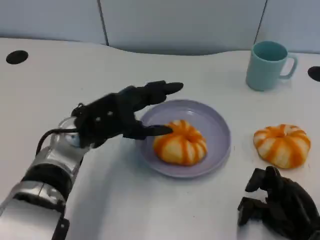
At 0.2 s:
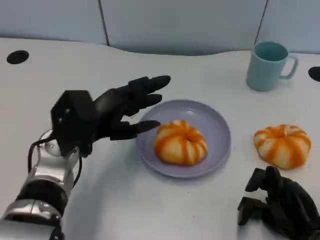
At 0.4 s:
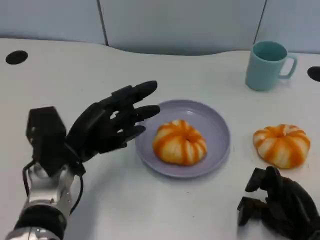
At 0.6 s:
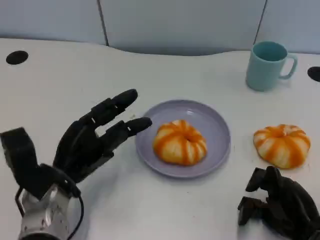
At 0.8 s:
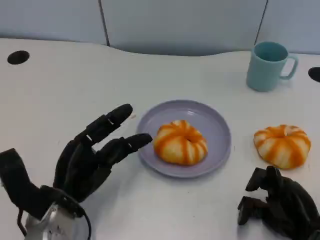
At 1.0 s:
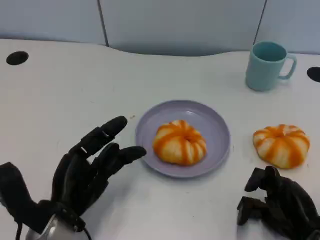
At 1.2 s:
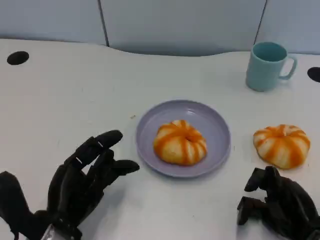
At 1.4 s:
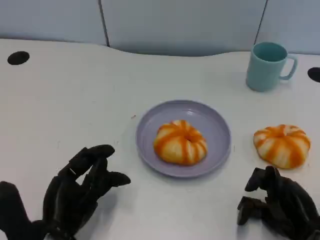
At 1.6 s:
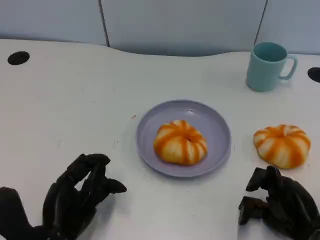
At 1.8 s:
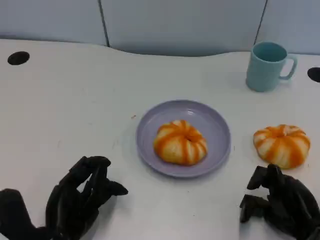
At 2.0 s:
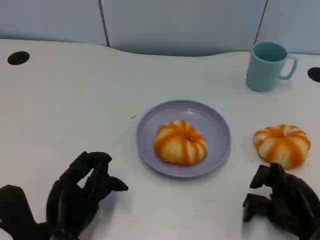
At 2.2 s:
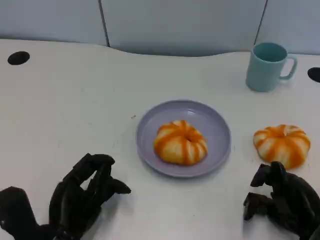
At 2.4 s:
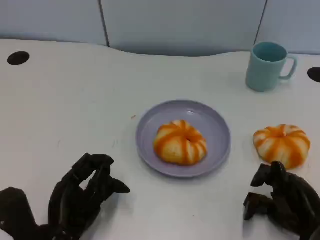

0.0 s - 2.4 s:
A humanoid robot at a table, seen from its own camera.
Task of the whole recording: Grasp the bread from the table and place it into the plate.
0.0 s - 1.2 s: The left hand goes approximately 15 cm backward and downward.
1.2 s - 2.4 s: The hands stay close to where they were, moving slightly.

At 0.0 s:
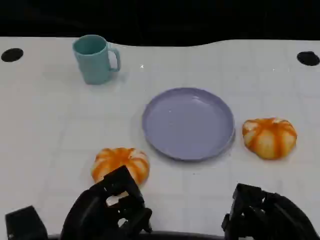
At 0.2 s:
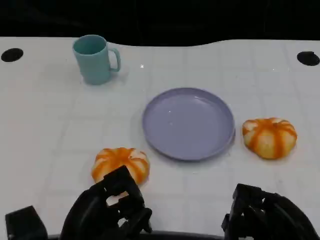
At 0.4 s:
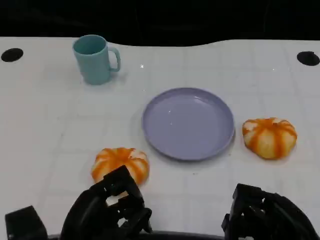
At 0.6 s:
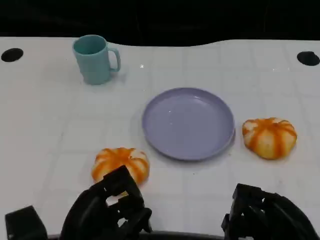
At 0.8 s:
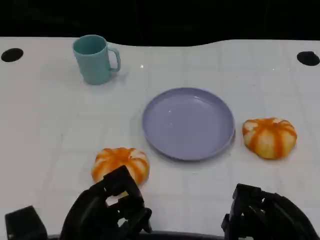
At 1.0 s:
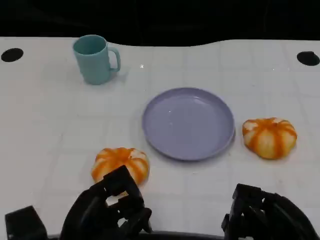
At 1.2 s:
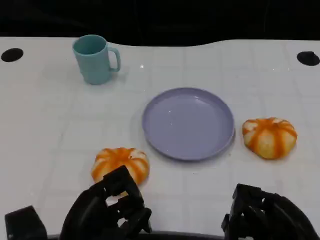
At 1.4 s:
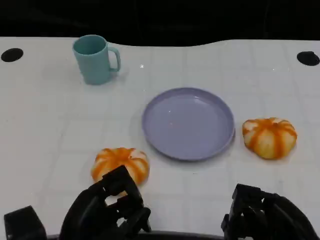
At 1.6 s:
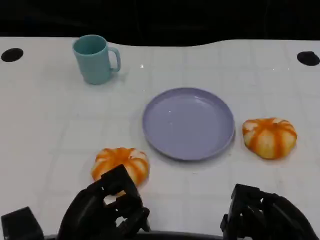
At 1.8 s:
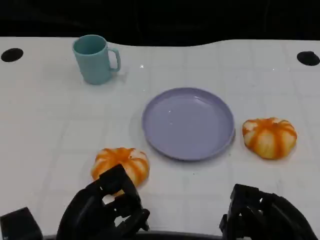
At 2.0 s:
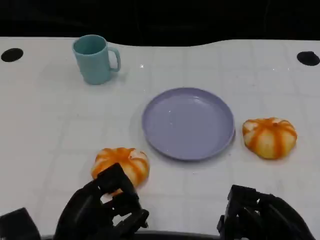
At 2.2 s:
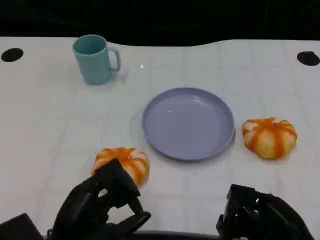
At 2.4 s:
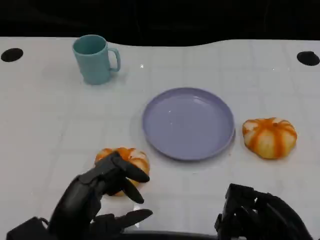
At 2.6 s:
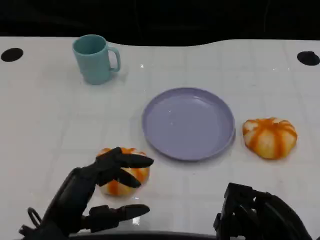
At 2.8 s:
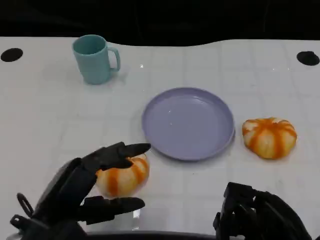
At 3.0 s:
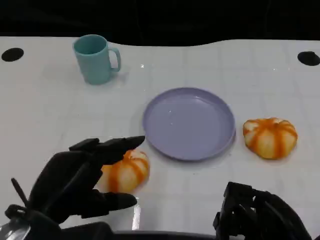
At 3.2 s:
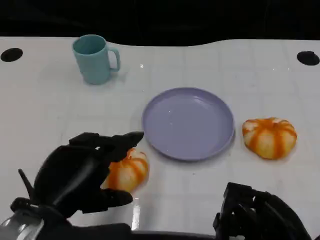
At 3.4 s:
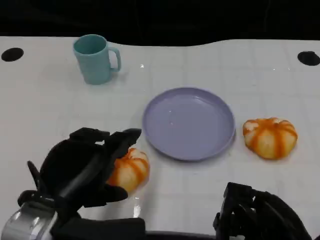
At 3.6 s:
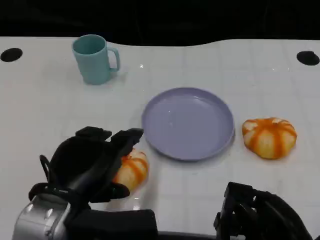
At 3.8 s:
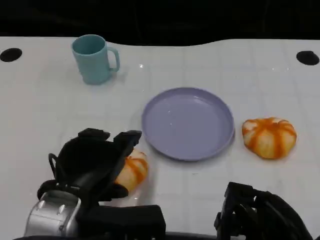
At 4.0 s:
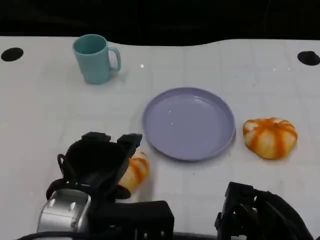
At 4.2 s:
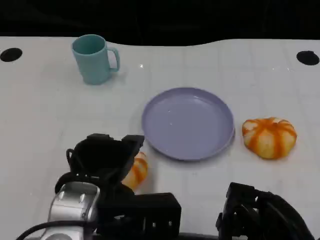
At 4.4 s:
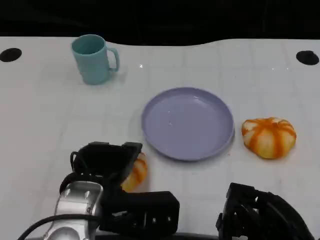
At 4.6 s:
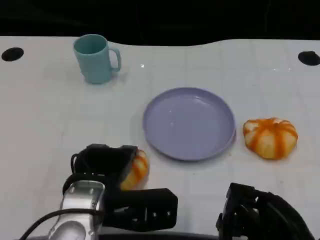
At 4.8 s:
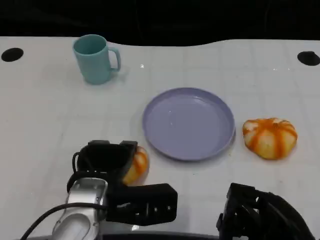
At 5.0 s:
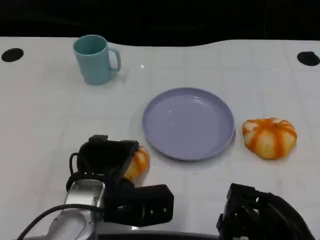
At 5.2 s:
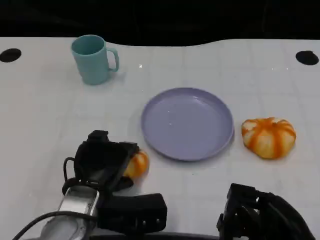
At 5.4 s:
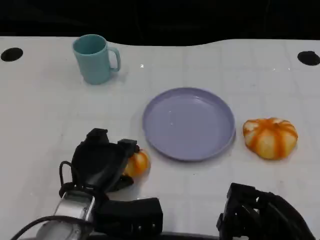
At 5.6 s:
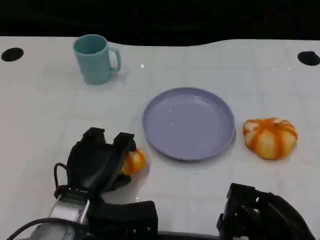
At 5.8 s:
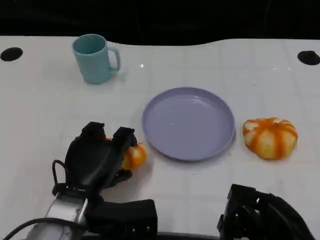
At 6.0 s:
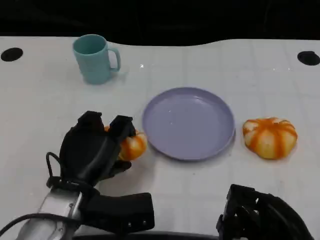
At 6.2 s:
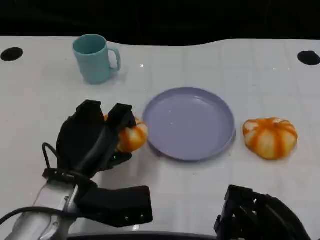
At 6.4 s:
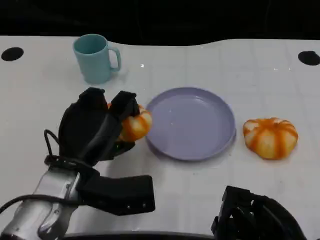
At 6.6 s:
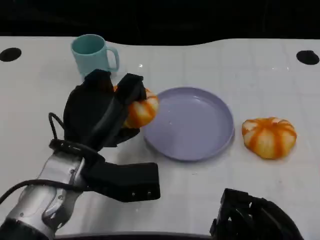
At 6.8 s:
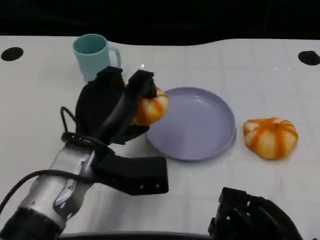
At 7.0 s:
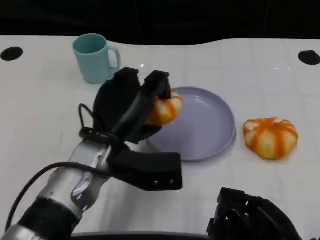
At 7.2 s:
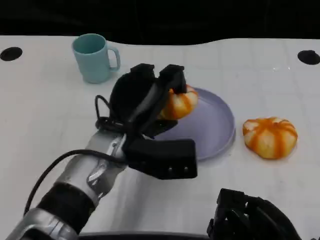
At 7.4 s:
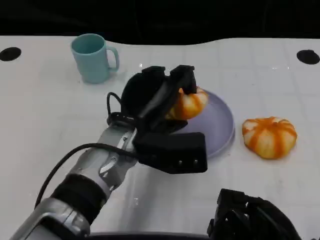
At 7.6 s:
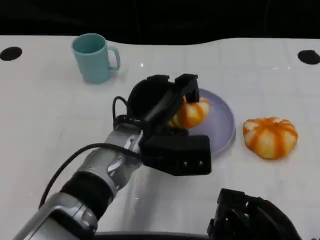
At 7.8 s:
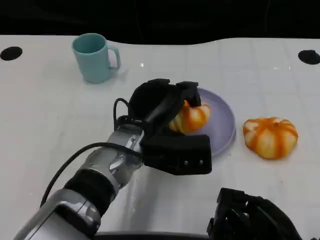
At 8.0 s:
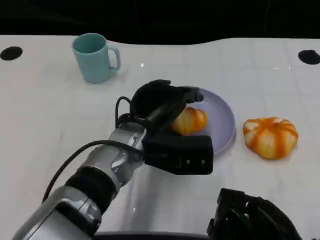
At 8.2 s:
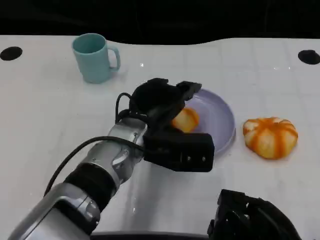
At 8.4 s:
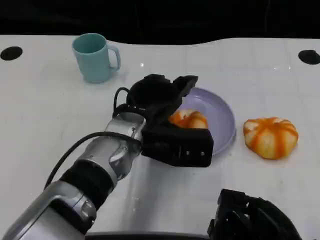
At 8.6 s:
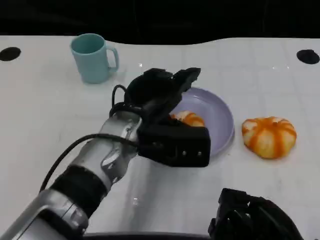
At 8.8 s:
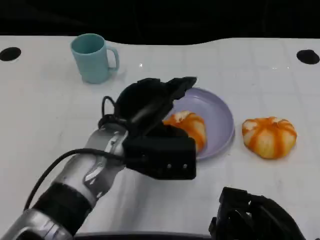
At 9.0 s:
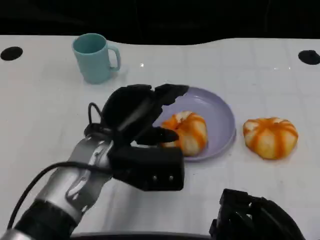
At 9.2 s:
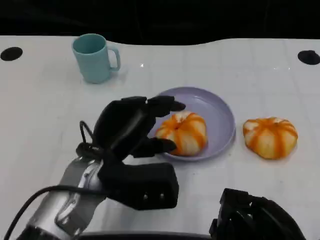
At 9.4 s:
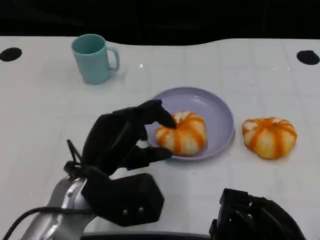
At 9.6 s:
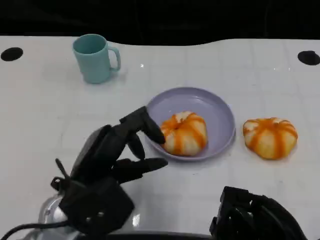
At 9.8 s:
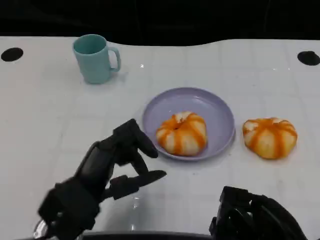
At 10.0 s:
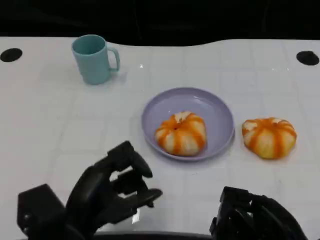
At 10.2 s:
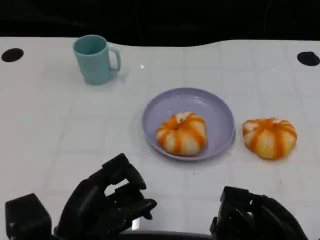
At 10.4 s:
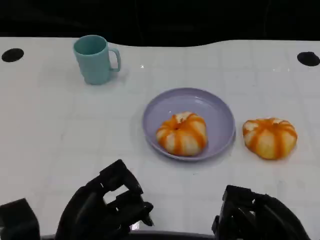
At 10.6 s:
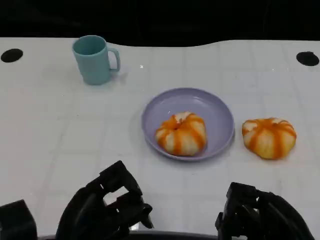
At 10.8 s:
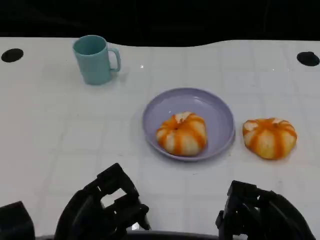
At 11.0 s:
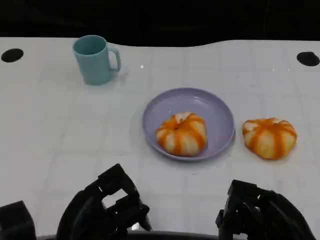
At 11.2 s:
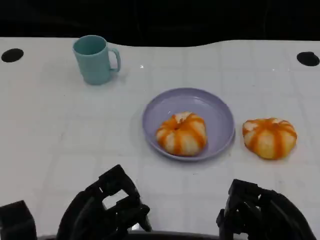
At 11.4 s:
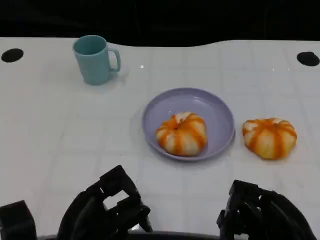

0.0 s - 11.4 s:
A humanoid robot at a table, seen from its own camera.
Task of the whole recording: Grasp the bread from the table and place it into the plate.
0.0 s - 1.4 s: The two hands keep their place.
1.4 s - 2.8 s: The left hand is displaced upward by approximately 5 cm.
2.8 s - 4.2 s: The left hand goes approximately 5 cm to the right.
4.2 s - 5.6 s: The left hand shifts approximately 10 cm downward.
5.6 s - 7.2 s: The left hand goes roughly 10 cm upward, to the right and forward.
8.6 s - 10.0 s: The left hand moves backward, to the left and downward, roughly 15 cm.
10.0 s - 11.4 s: The hands make only small movements.

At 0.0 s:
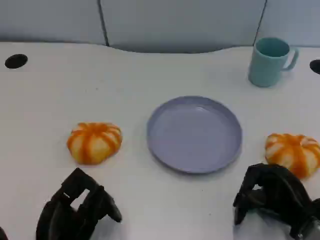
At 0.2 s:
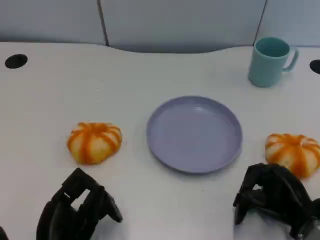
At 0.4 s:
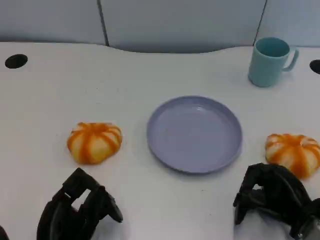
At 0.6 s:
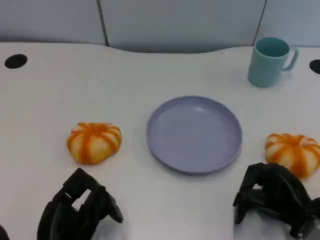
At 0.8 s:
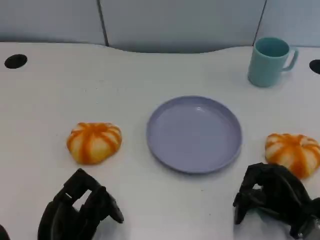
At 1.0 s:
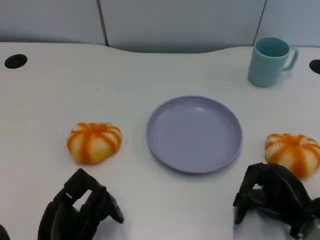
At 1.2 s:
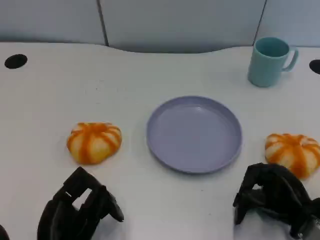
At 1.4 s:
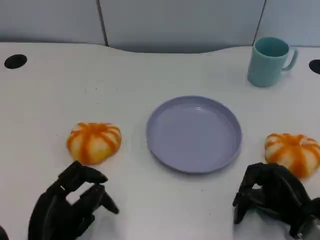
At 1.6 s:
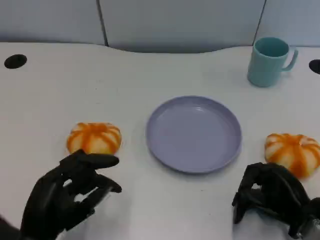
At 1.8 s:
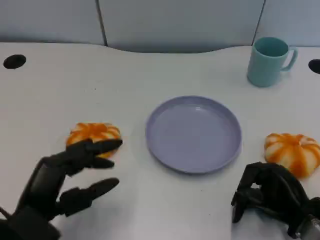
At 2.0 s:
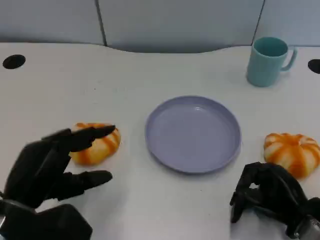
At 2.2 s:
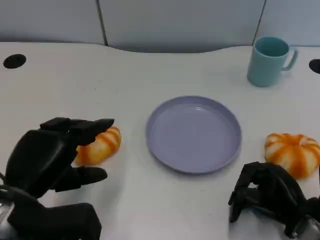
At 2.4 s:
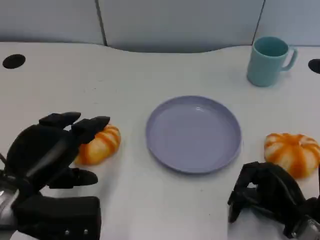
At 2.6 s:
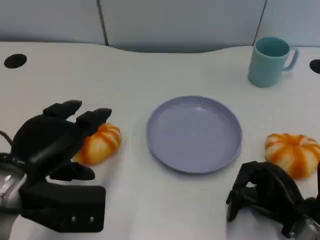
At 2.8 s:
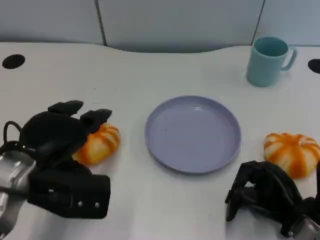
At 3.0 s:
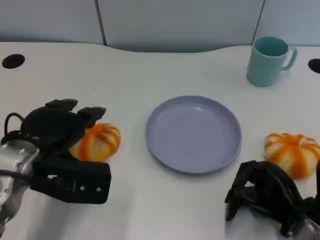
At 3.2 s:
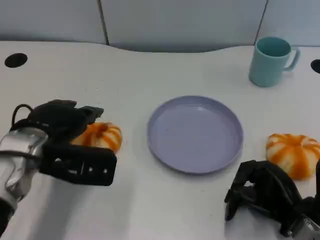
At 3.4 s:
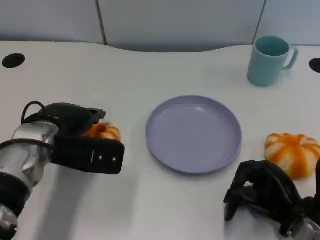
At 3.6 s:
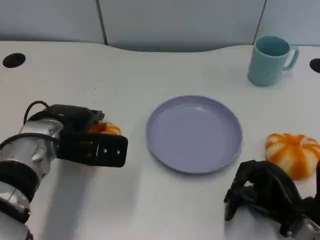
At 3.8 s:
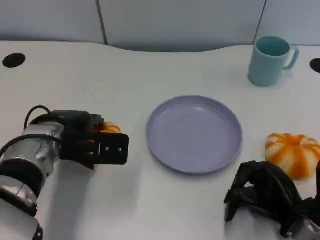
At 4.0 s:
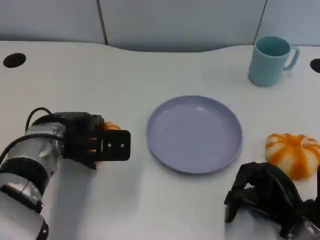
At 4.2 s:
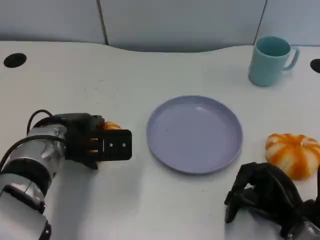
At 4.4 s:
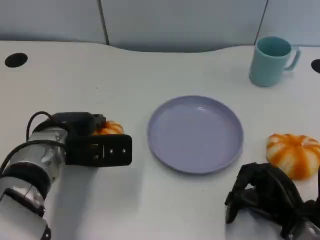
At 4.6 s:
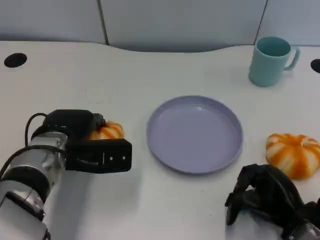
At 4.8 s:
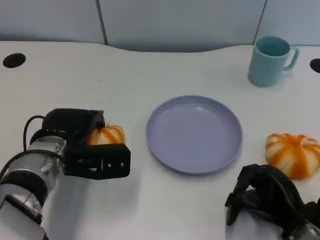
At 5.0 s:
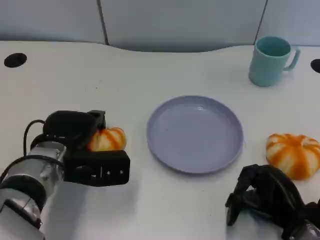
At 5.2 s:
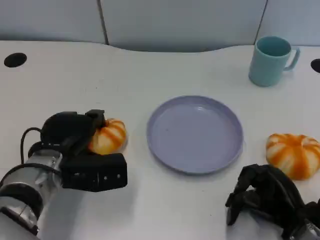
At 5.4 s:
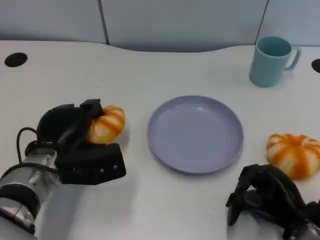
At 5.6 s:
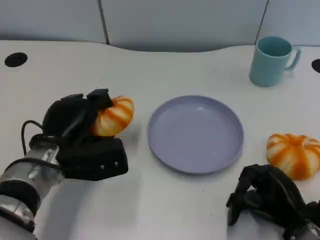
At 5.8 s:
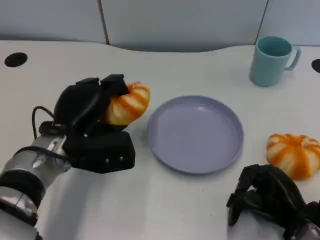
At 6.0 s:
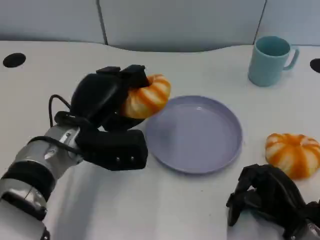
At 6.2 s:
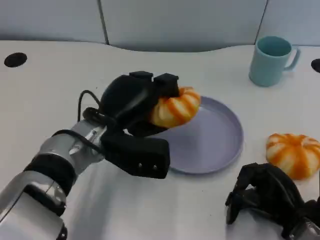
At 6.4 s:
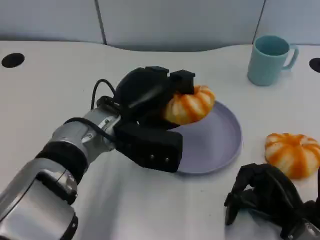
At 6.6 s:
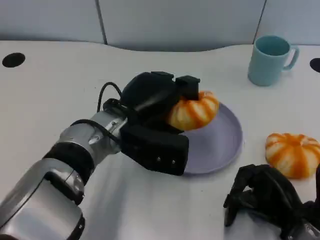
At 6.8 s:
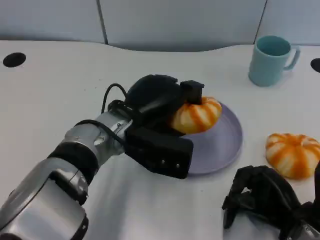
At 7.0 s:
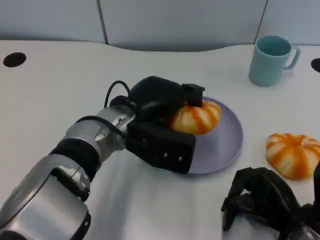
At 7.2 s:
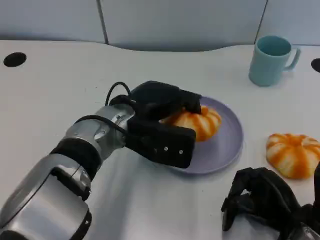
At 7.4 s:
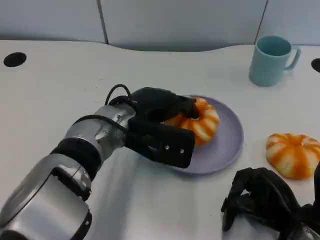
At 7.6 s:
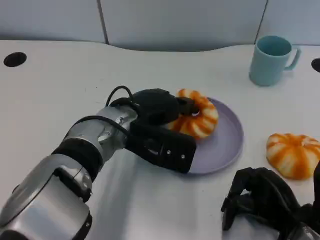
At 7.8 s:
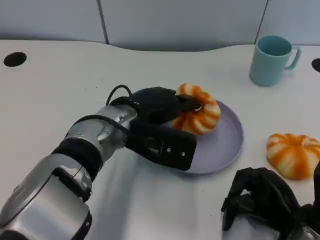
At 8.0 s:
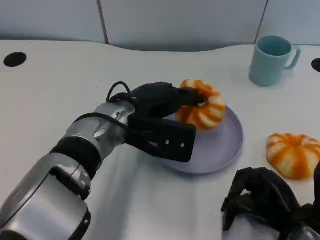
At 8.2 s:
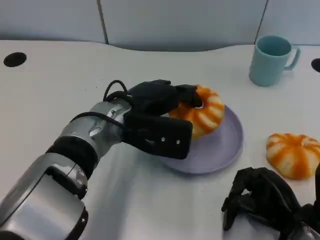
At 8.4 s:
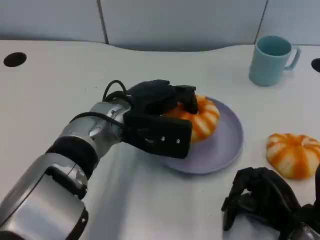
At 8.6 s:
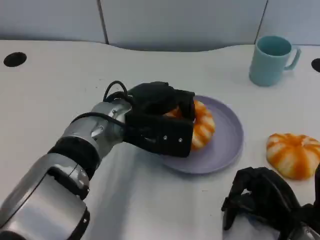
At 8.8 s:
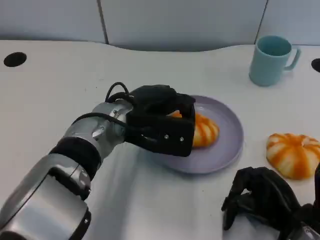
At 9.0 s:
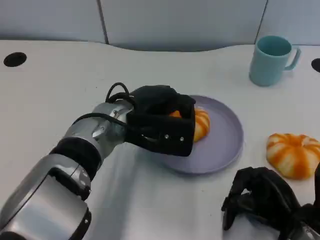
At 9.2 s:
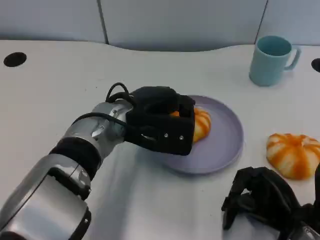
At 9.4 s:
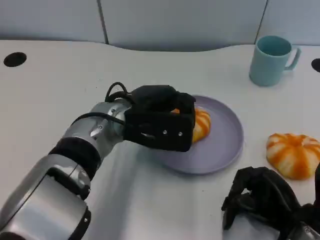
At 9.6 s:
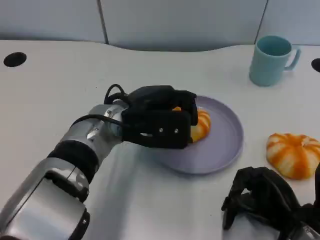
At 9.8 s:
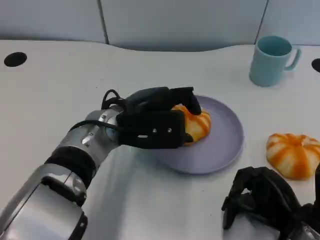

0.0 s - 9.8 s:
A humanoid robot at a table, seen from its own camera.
Task of the whole recording: Grasp the bread from the table and place it into the plate.
0.0 s - 1.4 s: The hands stay close to where they were, moving slightly.
1.4 s - 2.8 s: The left hand moves forward and upward, some 15 cm.
2.8 s - 4.2 s: The left hand moves forward, about 5 cm.
5.6 s - 7.0 s: The left hand moves to the right and upward, about 10 cm.
7.0 s - 8.4 s: The hands stay close to where they were, moving slightly.
8.4 s - 9.8 s: The hands stay close to where they were, moving slightly.
